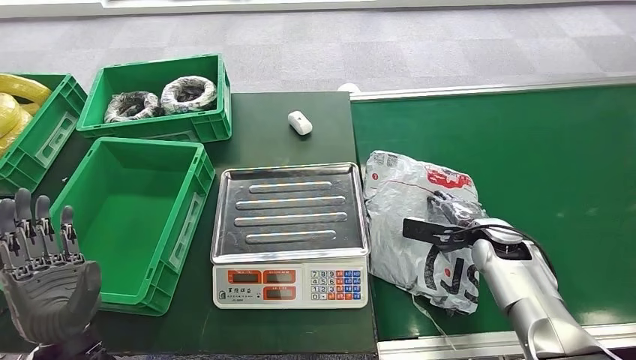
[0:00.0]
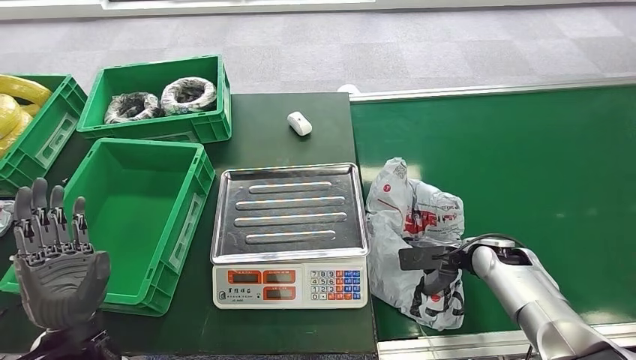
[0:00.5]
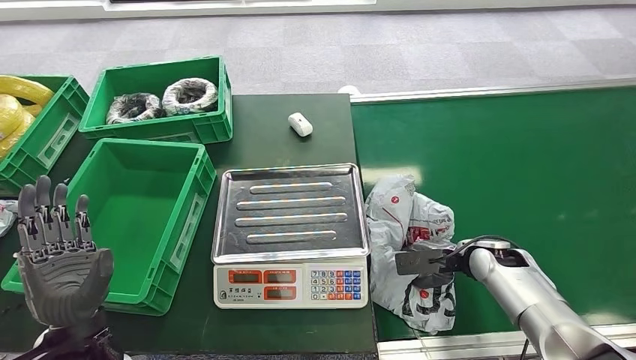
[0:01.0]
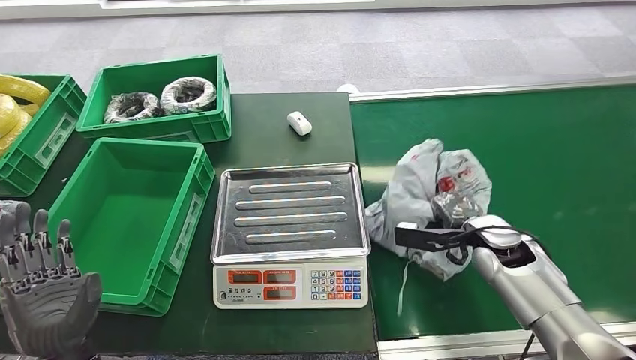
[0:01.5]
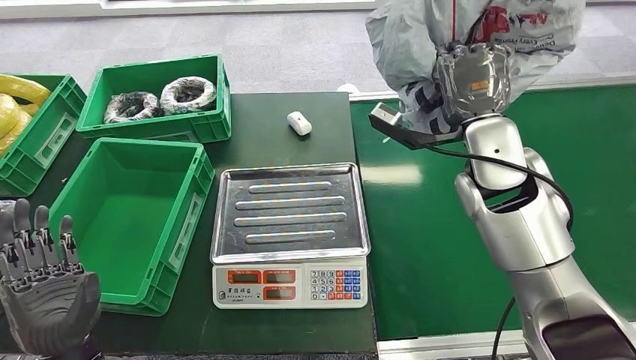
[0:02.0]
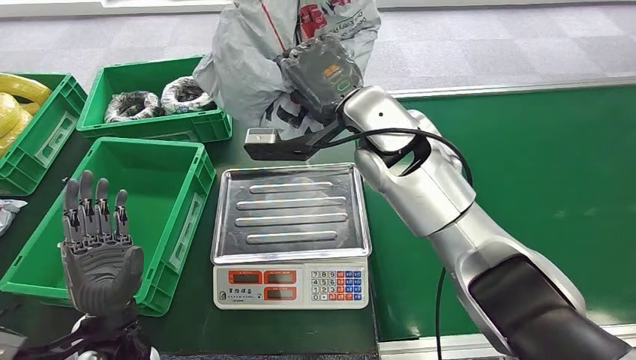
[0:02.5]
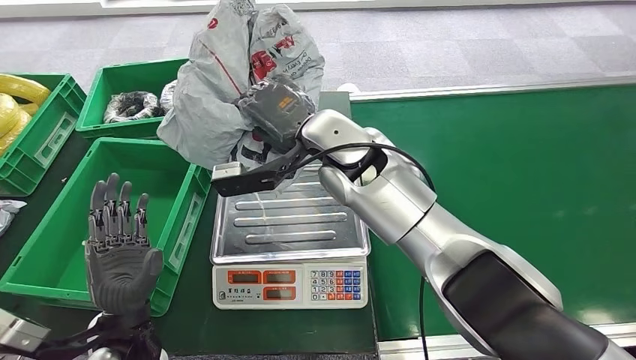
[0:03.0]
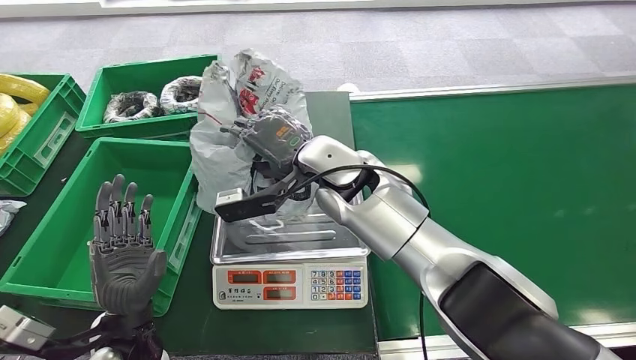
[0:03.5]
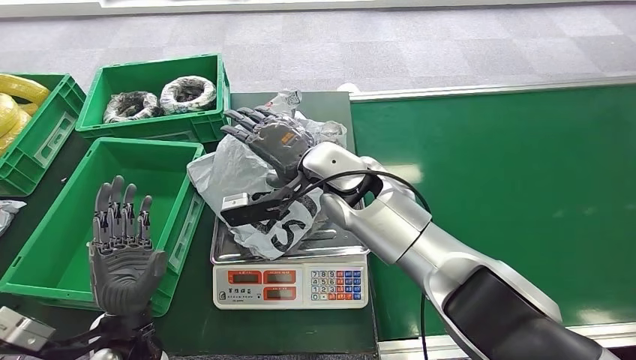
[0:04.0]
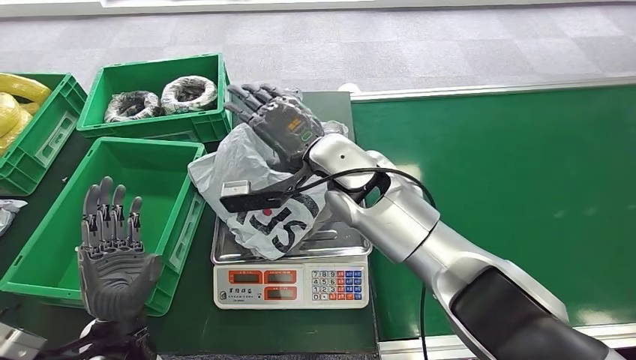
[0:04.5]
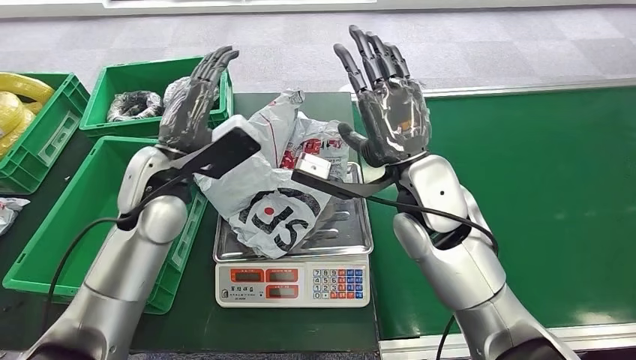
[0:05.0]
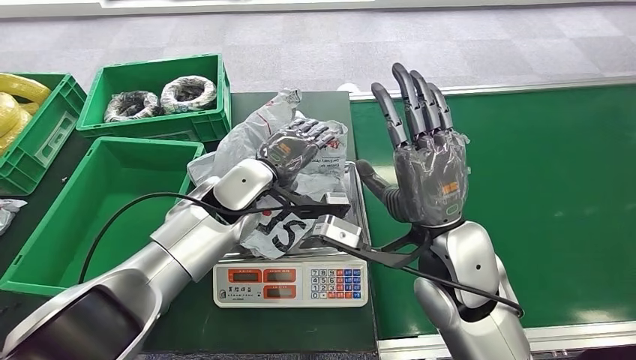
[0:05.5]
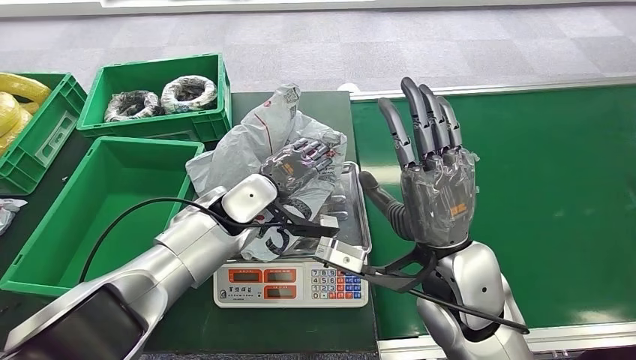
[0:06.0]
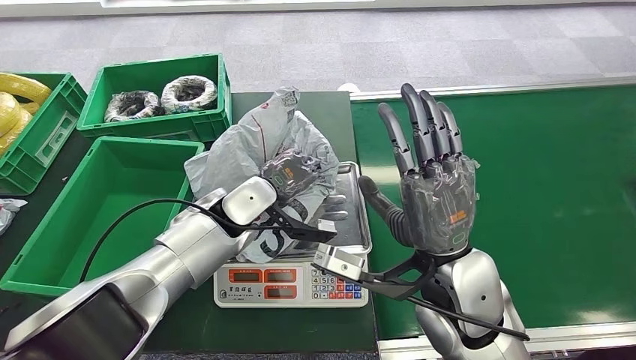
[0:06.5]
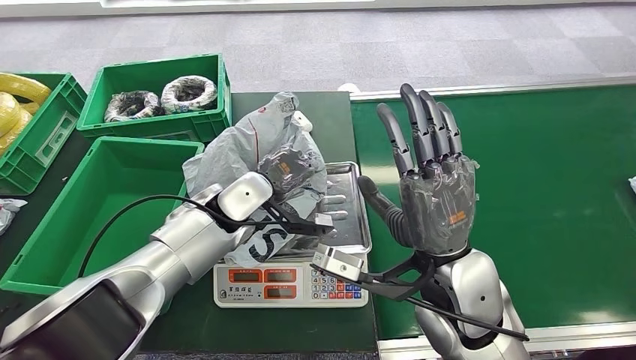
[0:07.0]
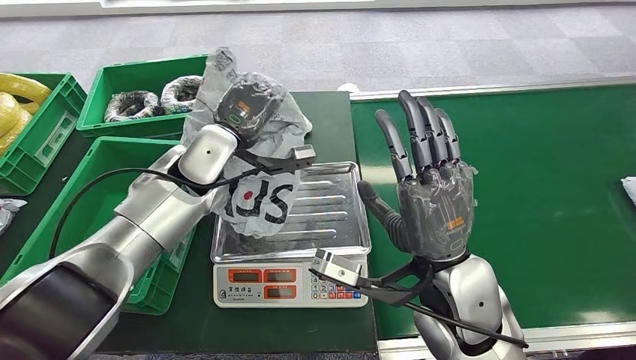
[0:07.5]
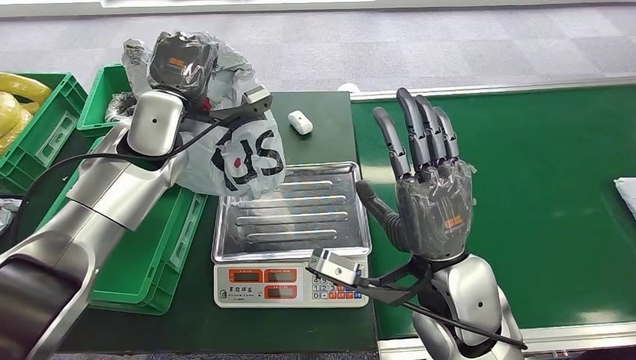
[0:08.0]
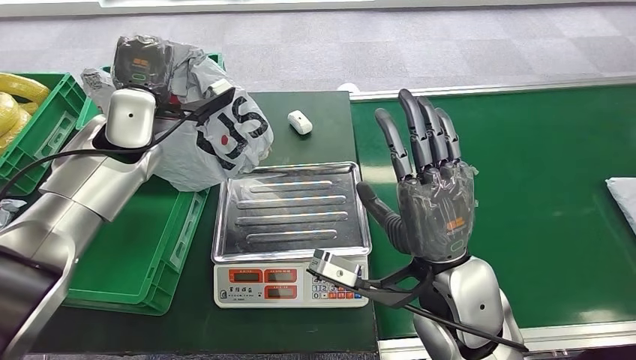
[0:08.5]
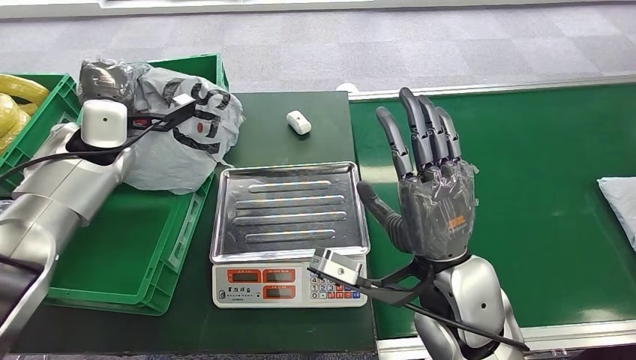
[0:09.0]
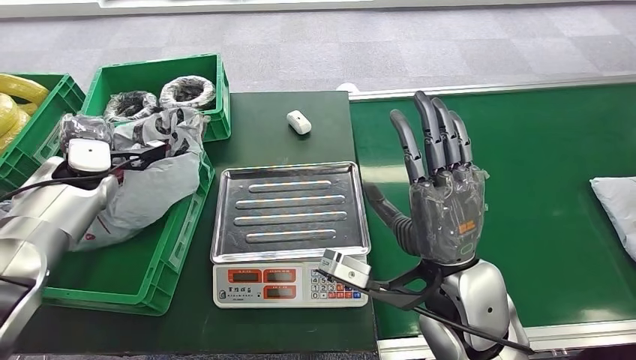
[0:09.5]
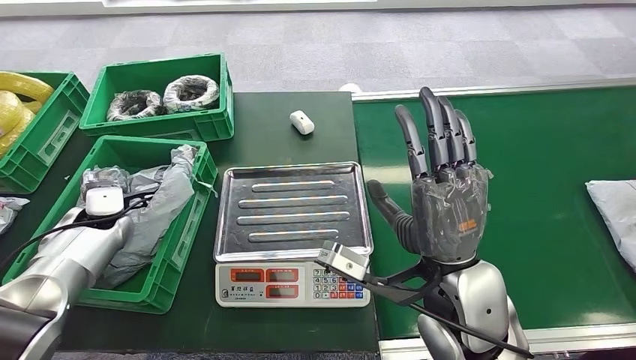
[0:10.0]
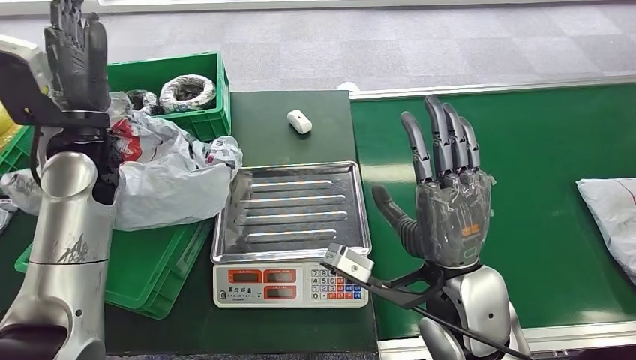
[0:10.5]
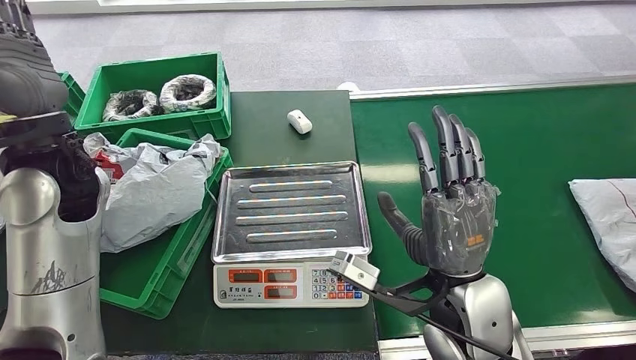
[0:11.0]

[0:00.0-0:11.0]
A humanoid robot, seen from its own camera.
Step, 0:03.5 to 0:04.5: Place the package onto the inbound machine.
Step, 0:05.0 to 0:07.5: Pick up the package from the inbound machine.
Step, 0:08.0 to 0:11.0: Place the package into the parcel locker.
